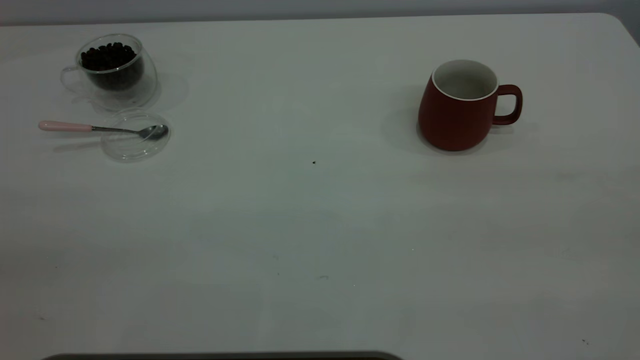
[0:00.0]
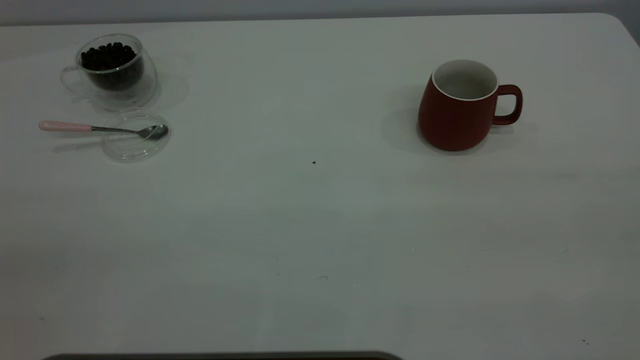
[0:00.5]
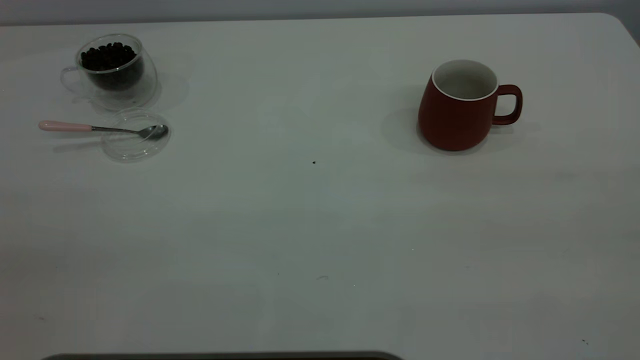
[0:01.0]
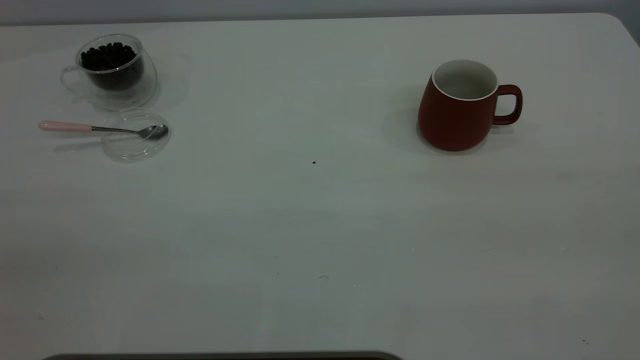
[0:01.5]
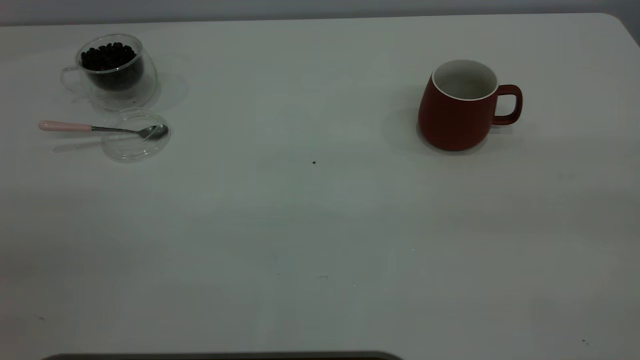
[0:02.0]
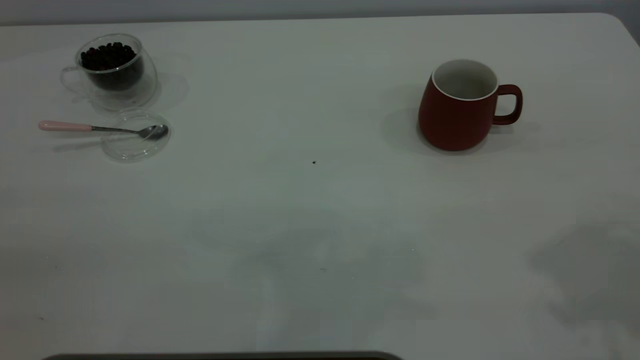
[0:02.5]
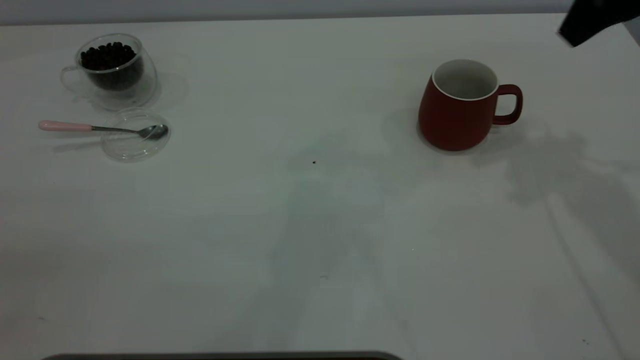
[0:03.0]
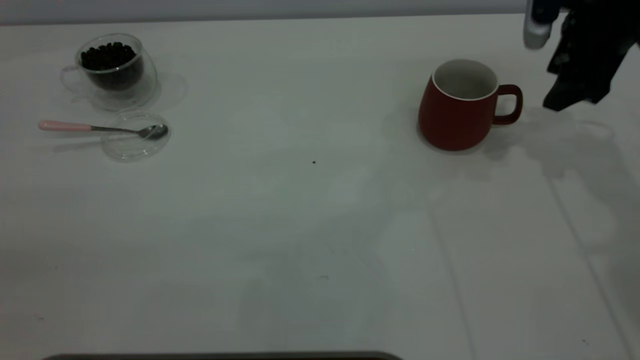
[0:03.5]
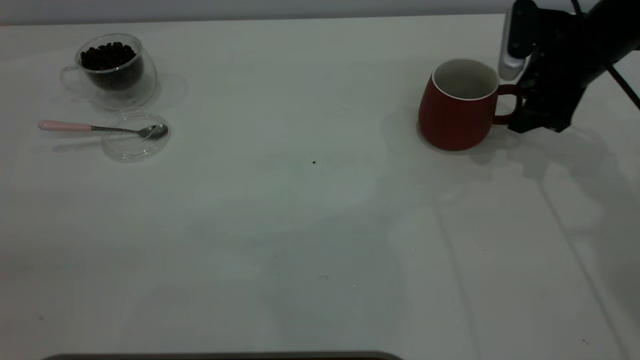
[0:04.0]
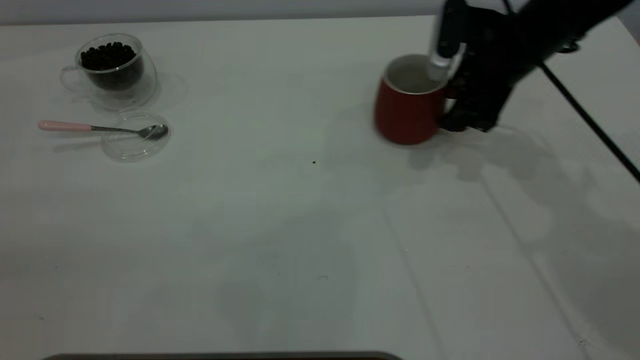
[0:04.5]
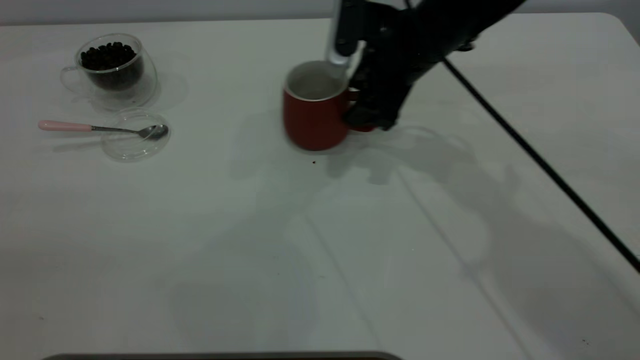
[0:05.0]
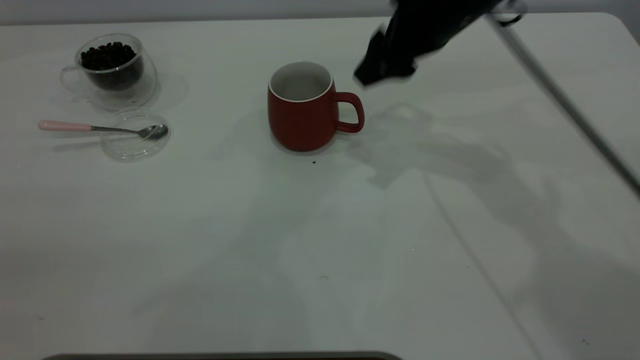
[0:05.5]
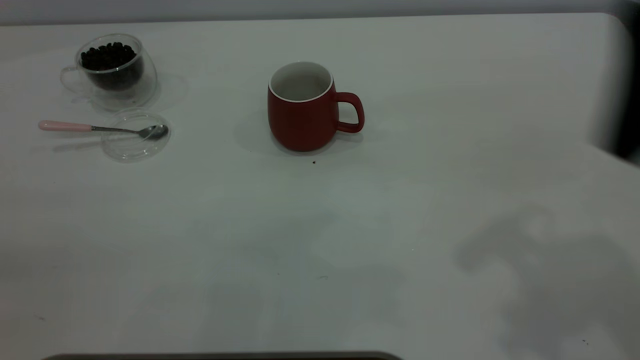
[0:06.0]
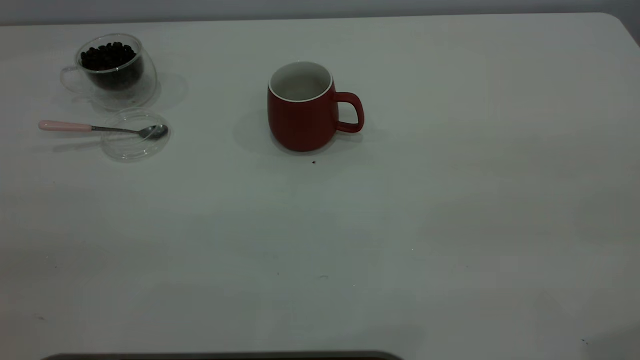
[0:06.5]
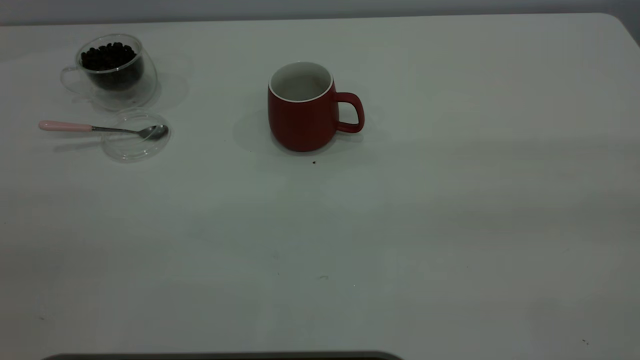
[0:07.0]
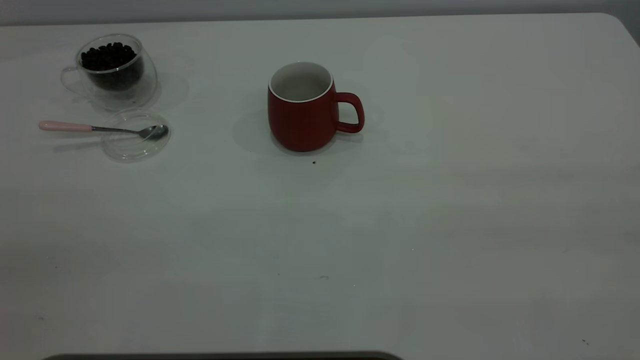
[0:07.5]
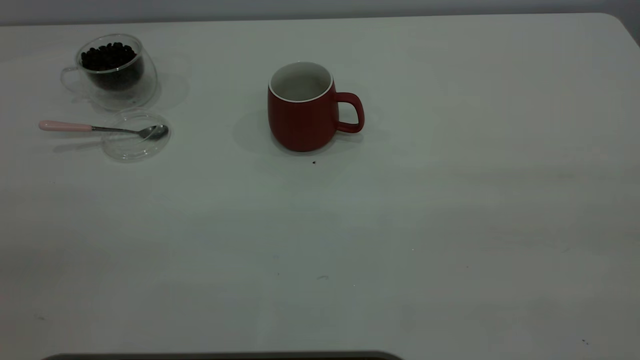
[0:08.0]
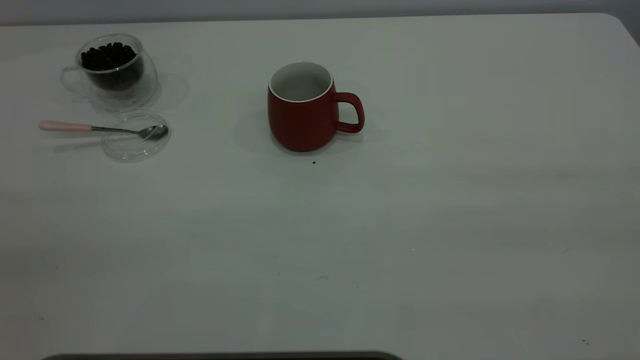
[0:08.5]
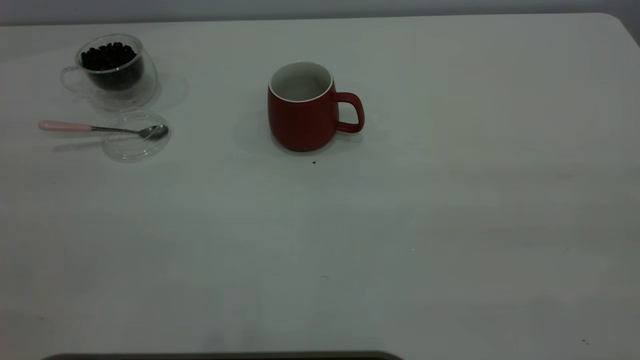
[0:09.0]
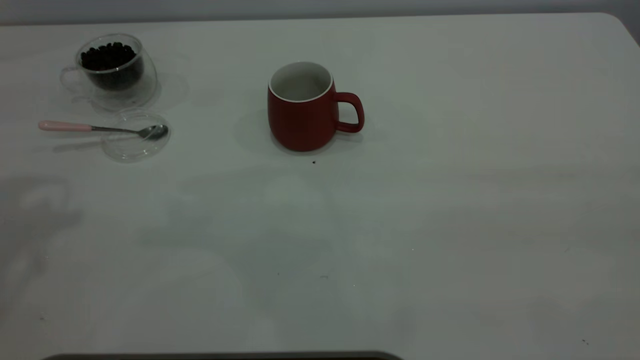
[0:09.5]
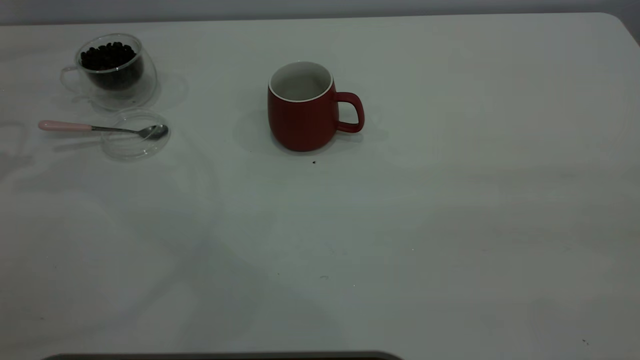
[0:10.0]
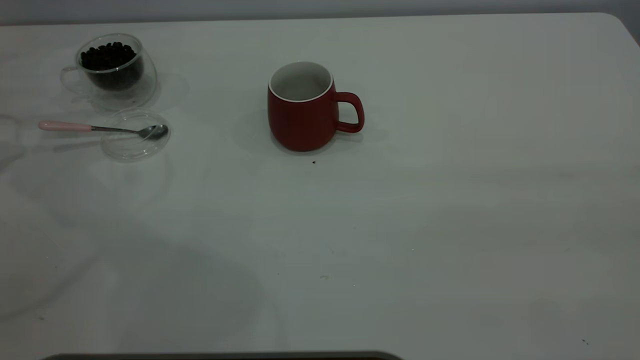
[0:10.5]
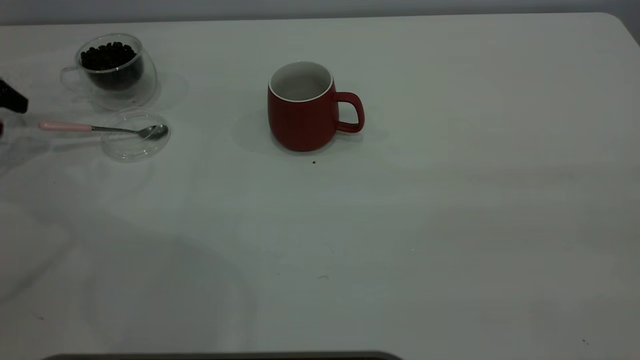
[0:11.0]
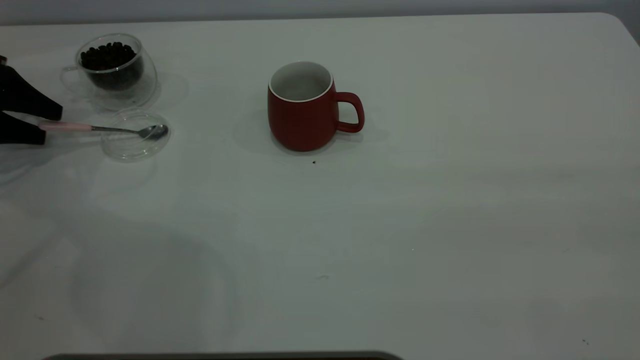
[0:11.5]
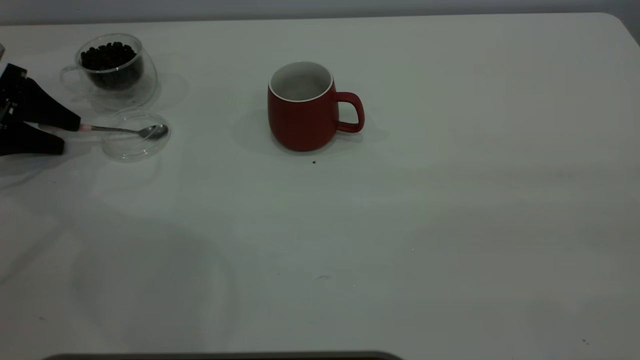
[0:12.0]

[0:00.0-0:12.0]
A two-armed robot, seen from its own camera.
Task of the whole recording: the right gripper place the red cup in the center of the table, the left gripper take the pink spoon from the cup lid and scoop out the coffee beans from the coffee cup and put them into the red cup, the left gripper put the spoon back into the cup lid.
Step, 0:00.0 to 0:05.0: Move the cup to the center of view.
0:02.0 to 0:04.0: The right gripper goes about 50 cm forward and downward.
0:04.0 to 0:06.0: The right gripper heads backward and upward, covering approximately 30 cm.
0:06.0 to 0:08.0: The right gripper goes some 20 cm backward.
0:10.0 to 0:12.0: The left gripper travels downward by about 15 cm, and opens up.

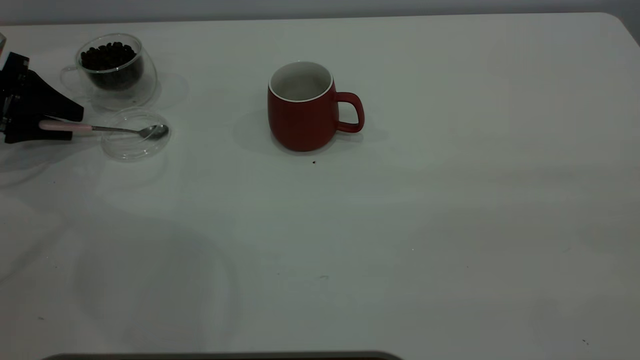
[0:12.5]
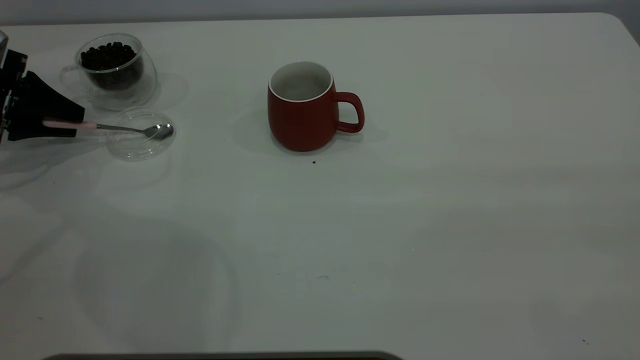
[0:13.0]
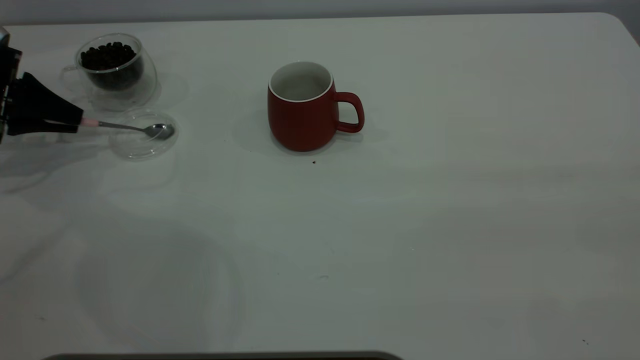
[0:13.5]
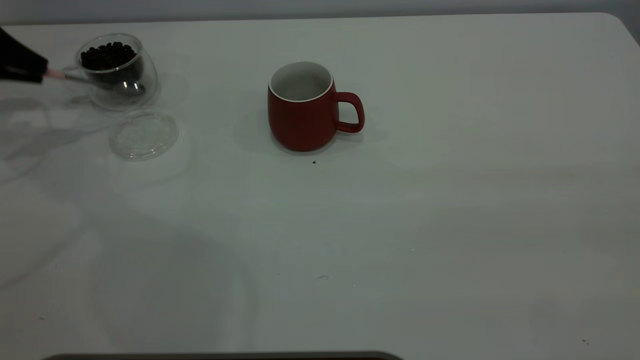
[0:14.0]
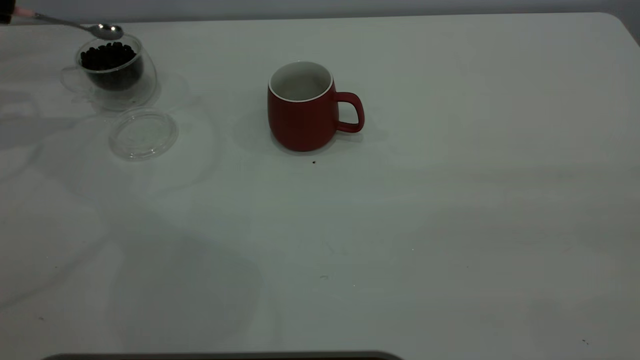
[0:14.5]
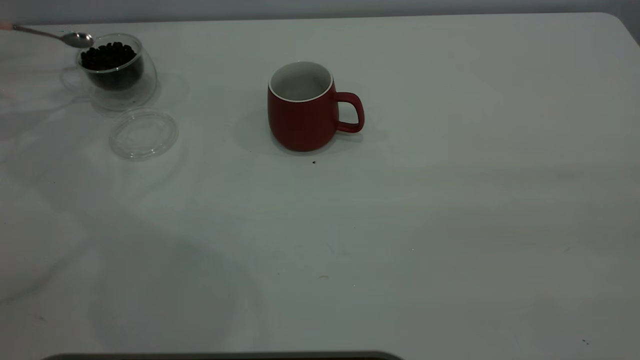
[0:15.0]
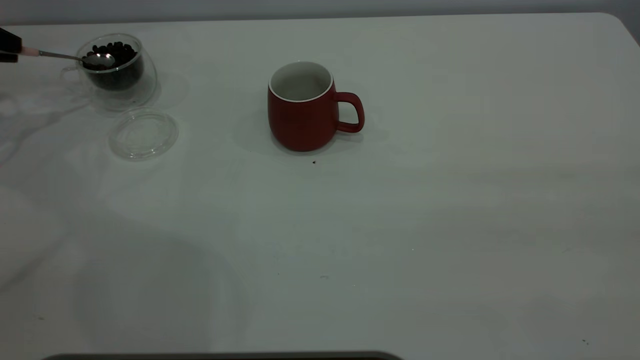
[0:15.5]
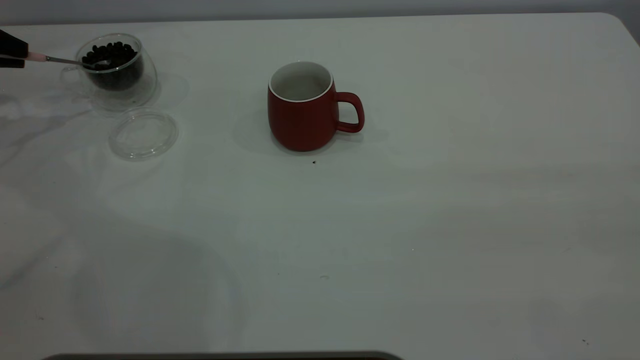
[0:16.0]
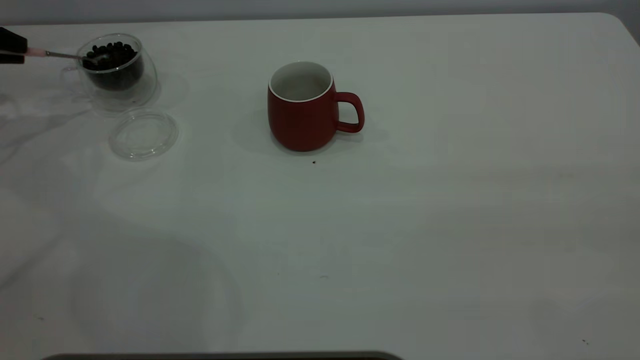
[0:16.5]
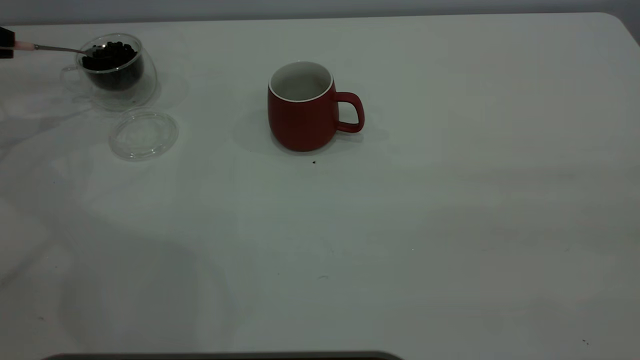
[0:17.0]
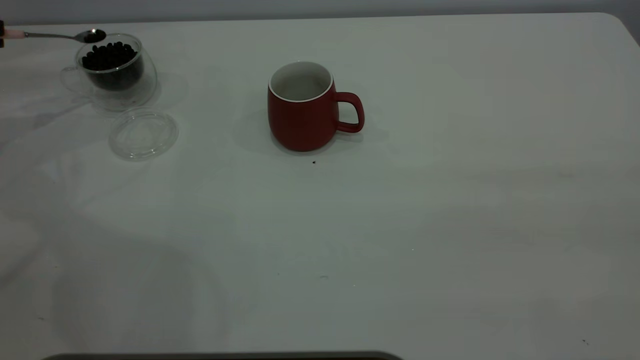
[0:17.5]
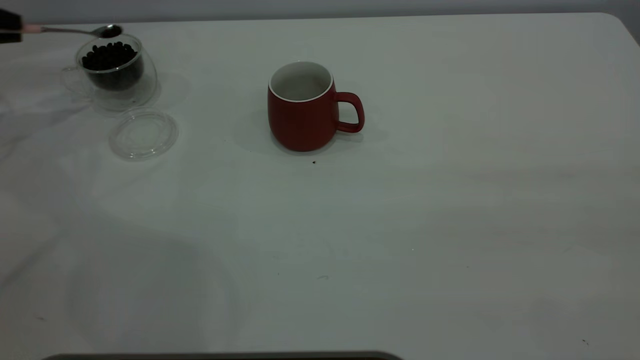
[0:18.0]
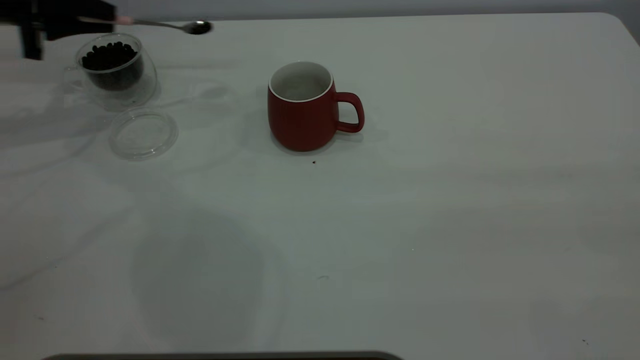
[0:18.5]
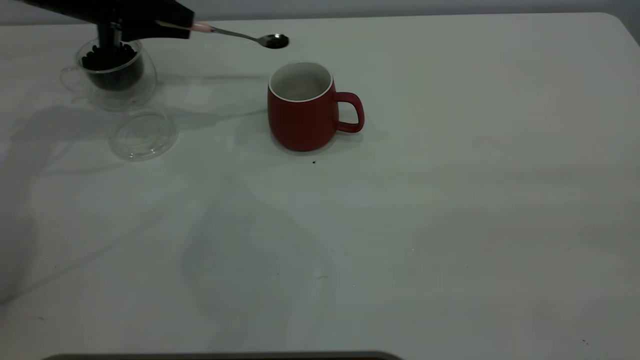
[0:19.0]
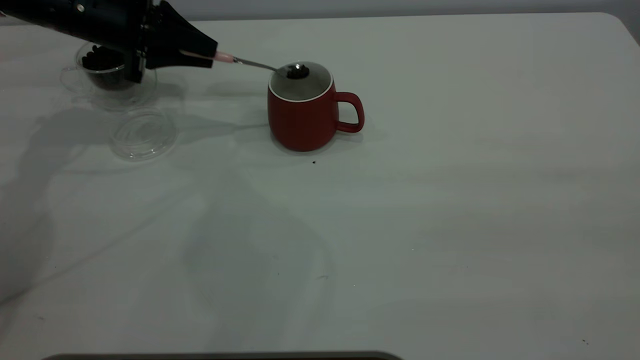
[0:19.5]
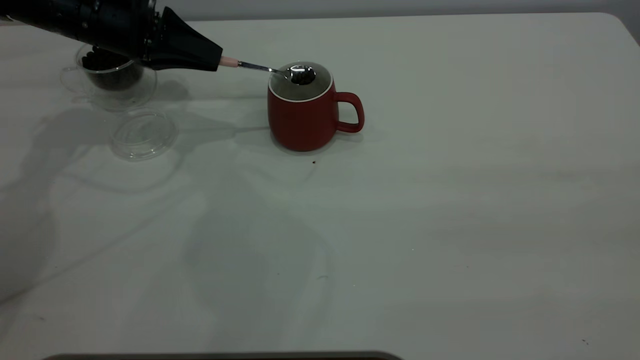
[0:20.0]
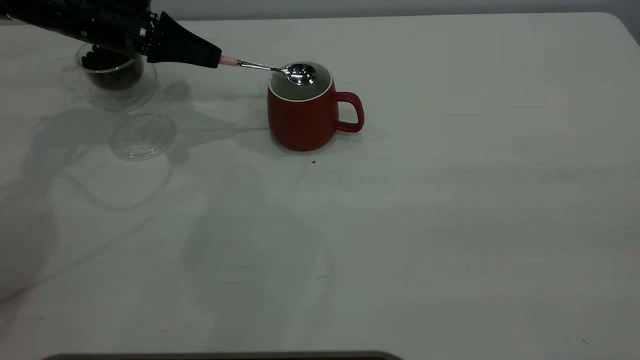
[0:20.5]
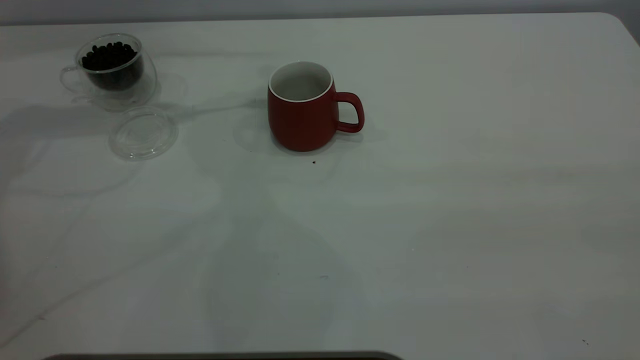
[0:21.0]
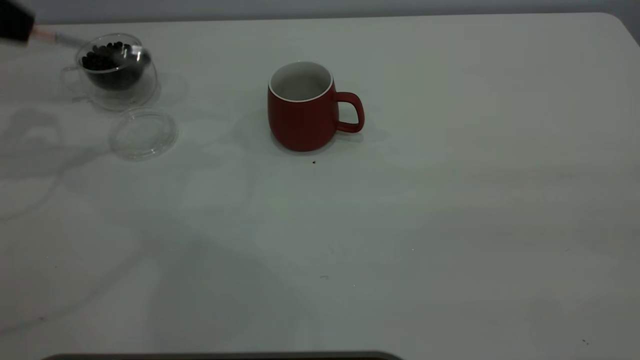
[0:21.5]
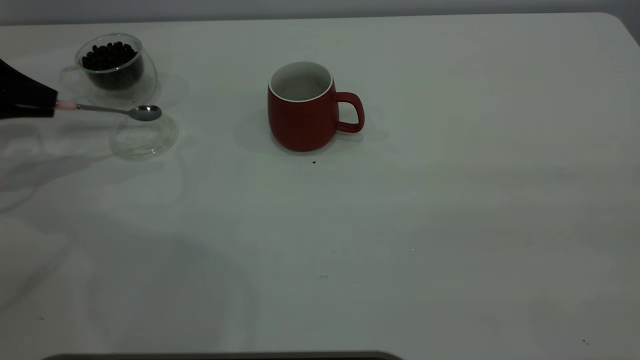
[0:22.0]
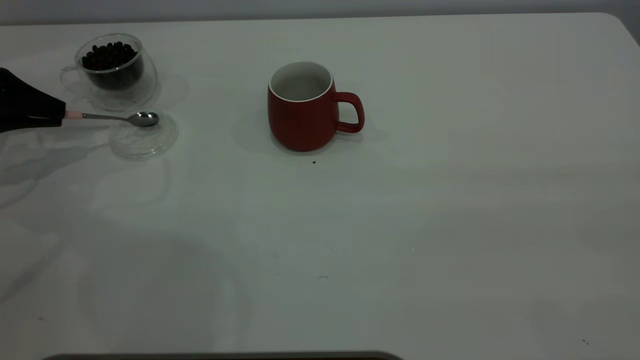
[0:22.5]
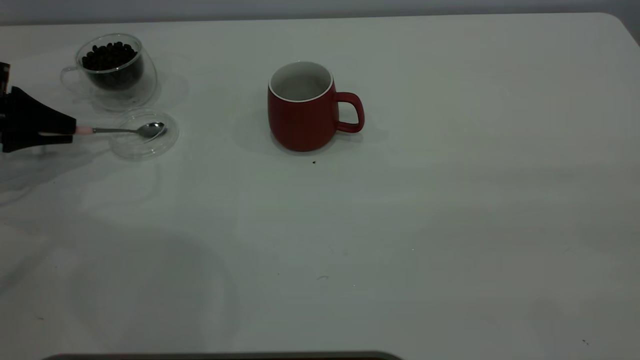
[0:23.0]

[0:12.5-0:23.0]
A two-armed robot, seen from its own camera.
Task of the whole recording: the right gripper place the red cup in the center of the table, the left gripper take the pink spoon from the cup lid and scoop out the coffee beans from the coffee cup and put them into the red cup, the left gripper put the spoon back into the cup lid.
Step, 0:14.5 to 0:20.5: Scoop a spoonful of beans into the cup.
0:12.5 to 0:14.5: The left gripper is displaced upward by about 15 cm, and closes its fingers.
0:14.5 to 0:16.5: The left gripper is displaced downward by about 5 cm.
0:16.5 to 0:19.0: The left gripper travels to the right by some 20 cm.
0:19.0 to 0:21.0: The left gripper travels upward by roughly 10 cm.
0:21.0 to 0:23.0: The left gripper goes about 25 cm downward, to the left and backward.
